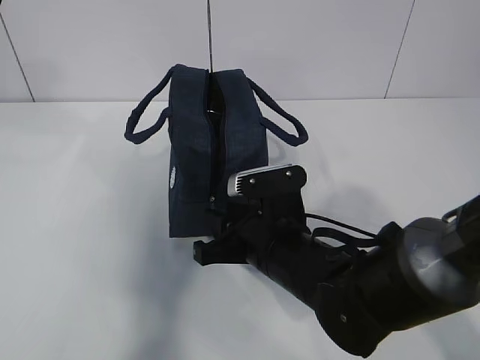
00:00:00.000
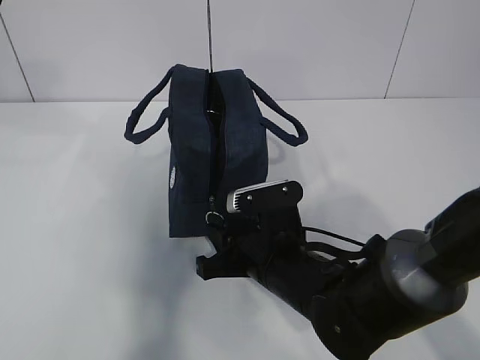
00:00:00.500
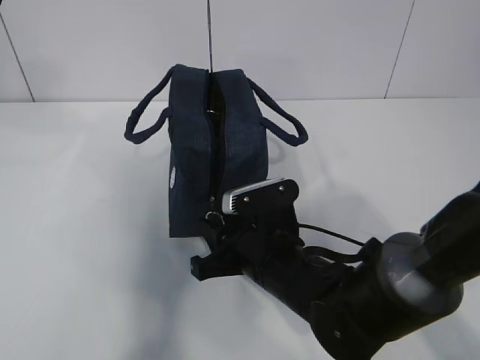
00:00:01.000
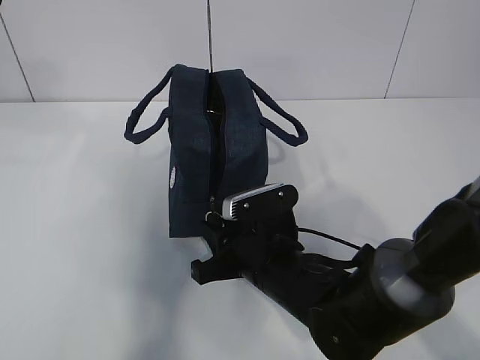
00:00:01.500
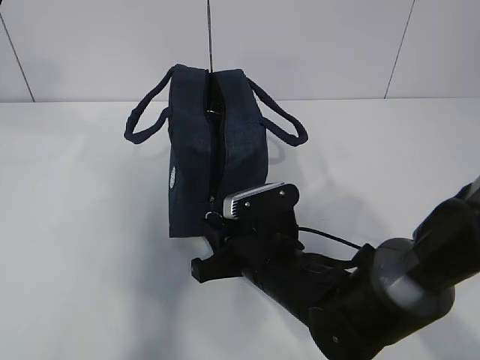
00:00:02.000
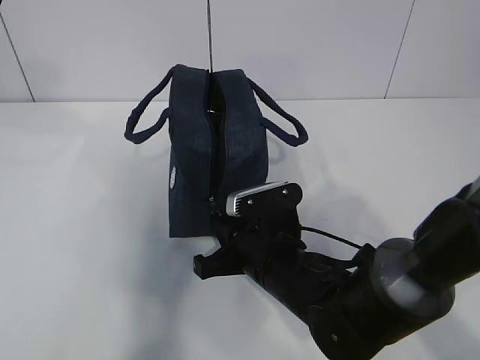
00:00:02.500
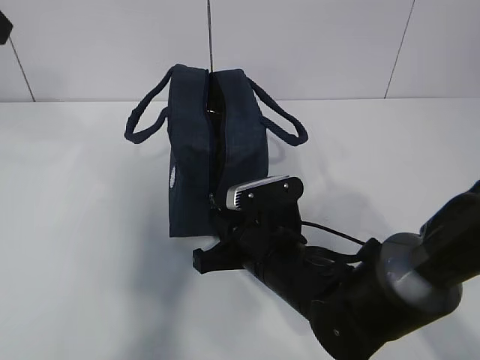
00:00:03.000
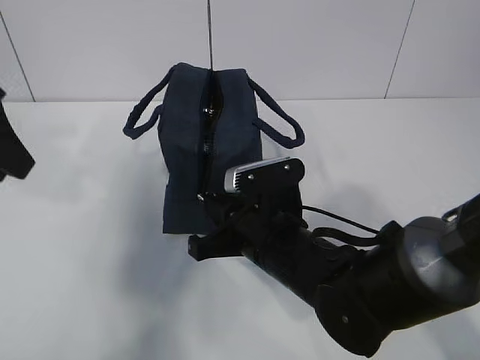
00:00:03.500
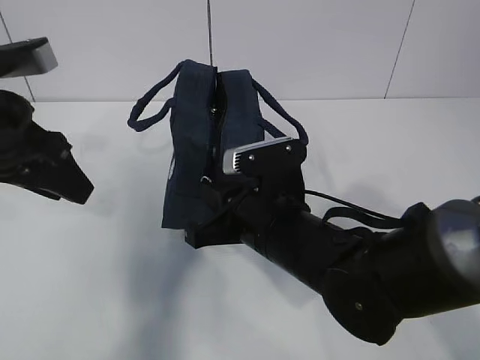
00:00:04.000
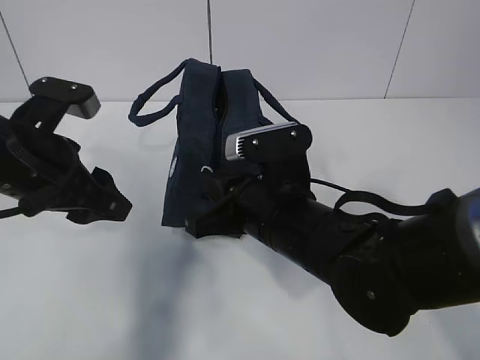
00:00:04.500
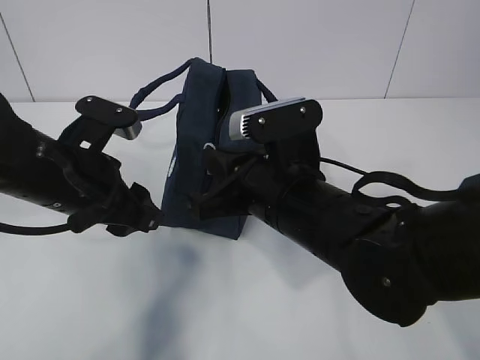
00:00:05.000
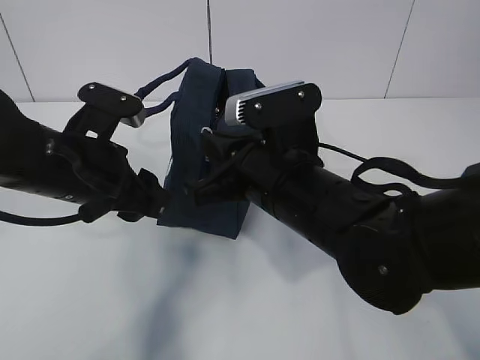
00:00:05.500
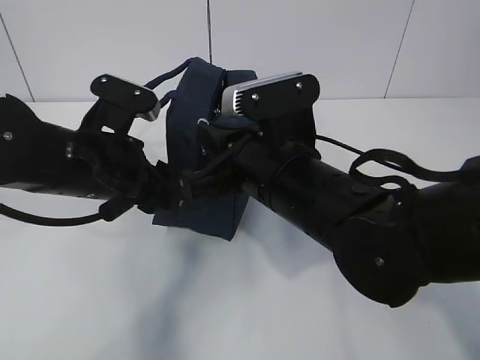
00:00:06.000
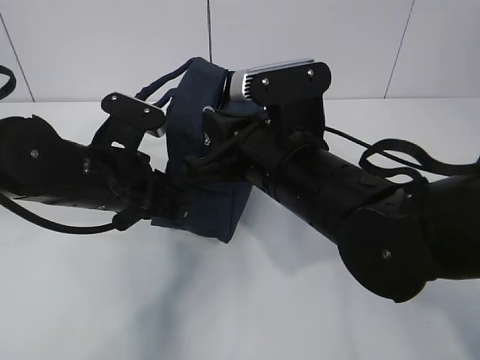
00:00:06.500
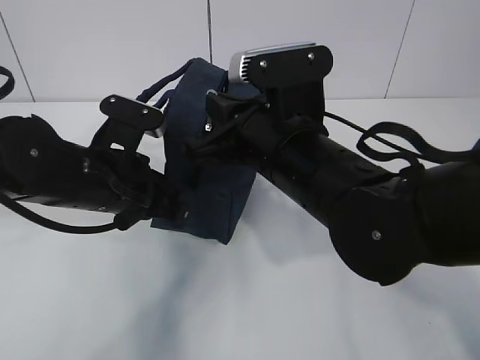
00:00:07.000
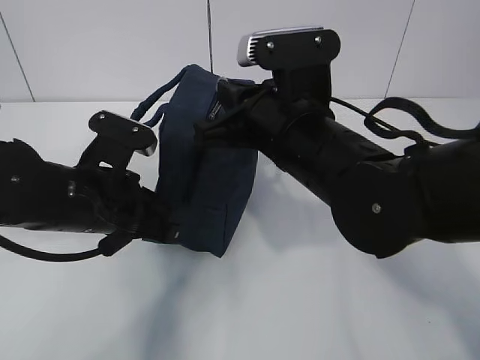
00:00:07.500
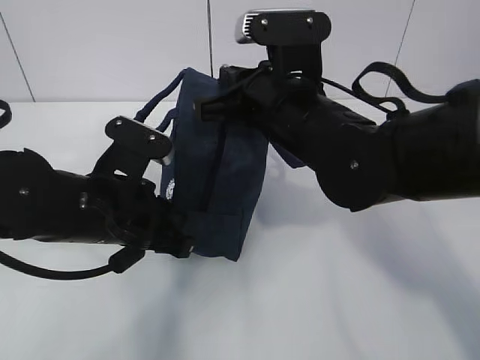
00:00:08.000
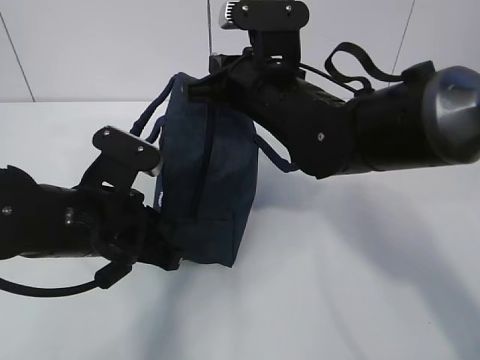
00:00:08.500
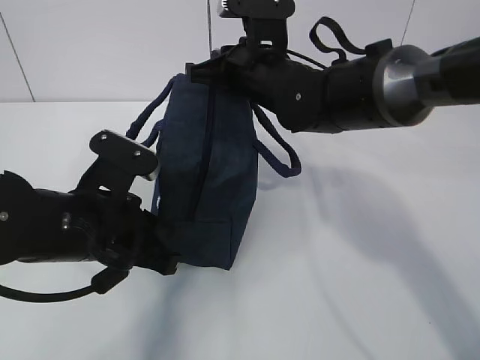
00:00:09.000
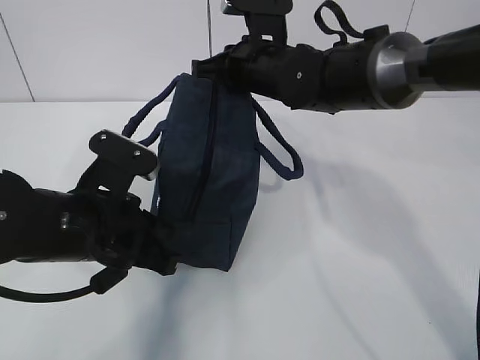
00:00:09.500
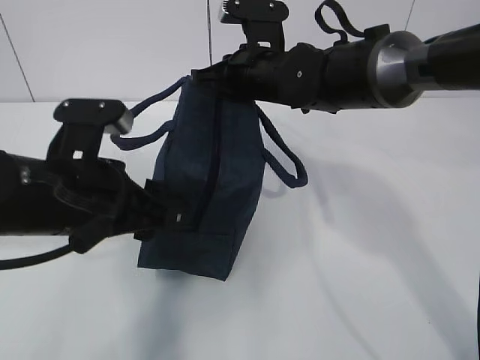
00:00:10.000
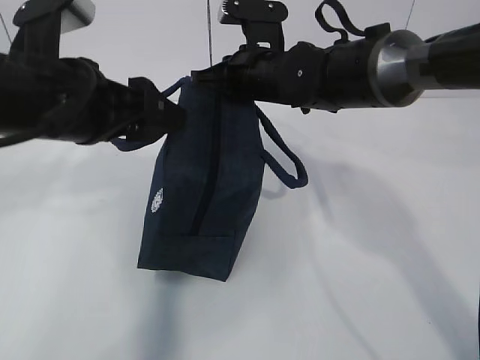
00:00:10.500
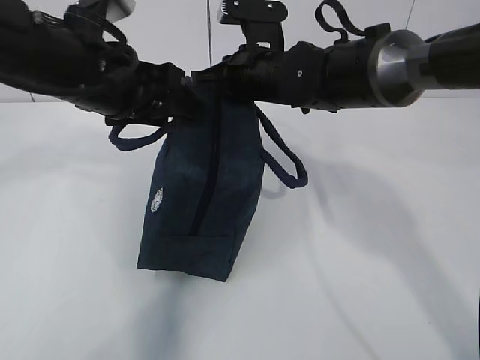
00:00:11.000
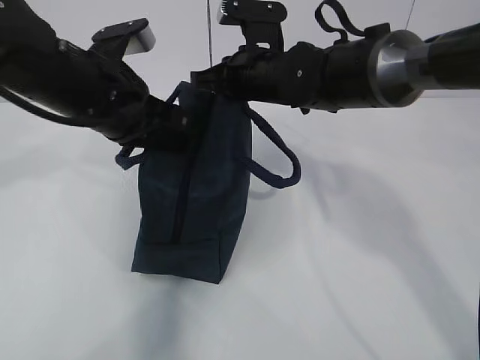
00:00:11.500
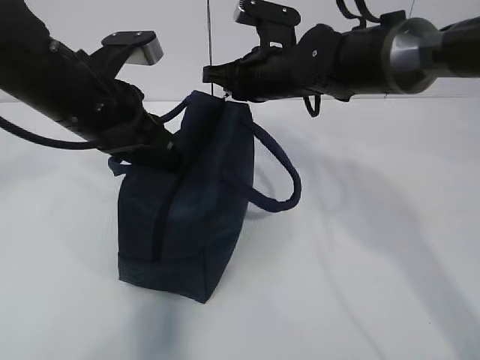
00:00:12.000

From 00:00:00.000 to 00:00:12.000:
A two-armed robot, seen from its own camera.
Step, from 00:00:00.000 to 00:00:05.000: Pull the zipper with your right hand.
Step, from 00:00:05.500 to 00:00:06.000: Grab the lunch bag with your left hand.
From 00:00:00.000 to 00:00:02.000: There are only small adjustments of the grippers.
From 00:00:02.000 to 00:00:04.000: The left gripper heads downward, covering about 15 cm, while the right gripper is displaced upward by some 5 cm, and closes its fingers.
From 00:00:04.000 to 00:00:06.000: The left gripper is displaced to the right and downward by some 10 cm. The right gripper heads upward, covering roughly 5 cm.
From 00:00:06.000 to 00:00:08.000: The right gripper moves forward, approximately 5 cm. Meanwhile the left gripper closes up.
From 00:00:08.000 to 00:00:10.000: The left gripper opens its fingers, while the right gripper goes approximately 10 cm forward.
From 00:00:10.000 to 00:00:12.000: The left gripper moves forward, approximately 10 cm, and closes its fingers.

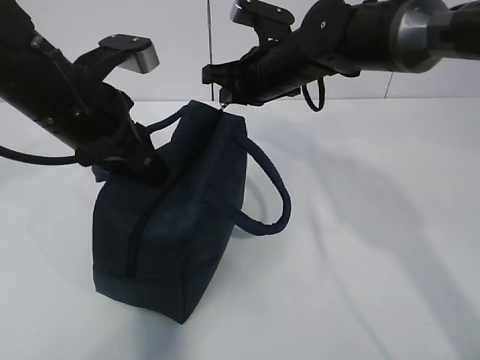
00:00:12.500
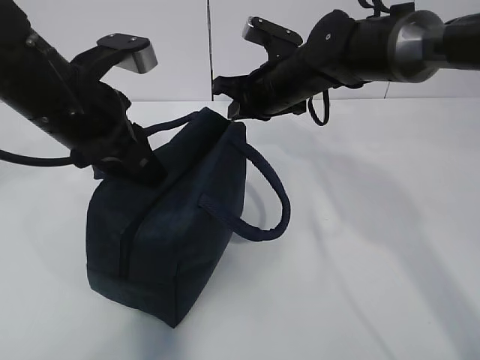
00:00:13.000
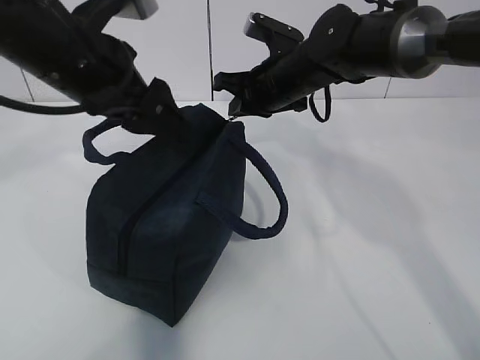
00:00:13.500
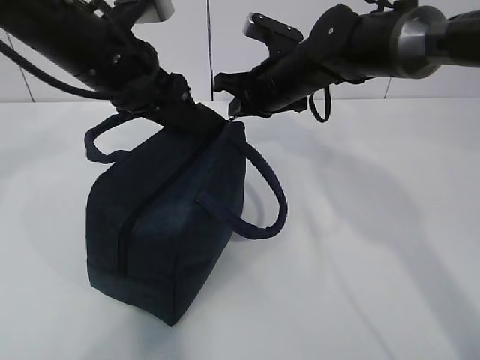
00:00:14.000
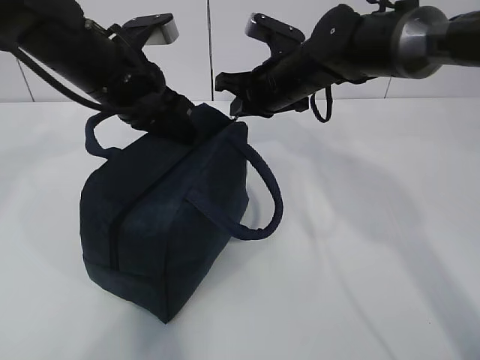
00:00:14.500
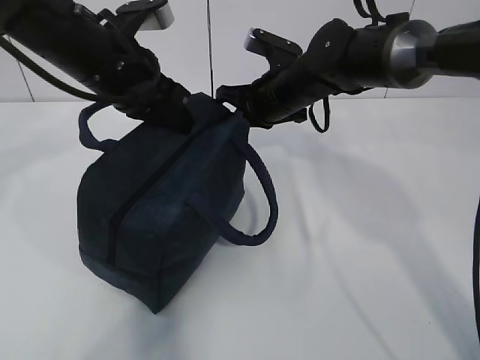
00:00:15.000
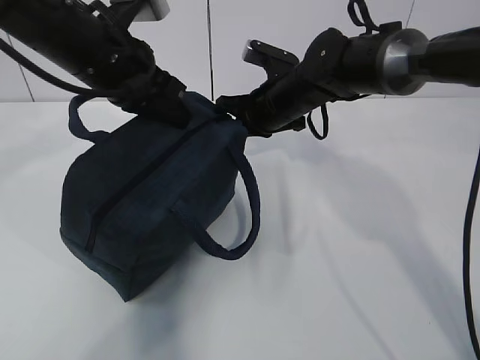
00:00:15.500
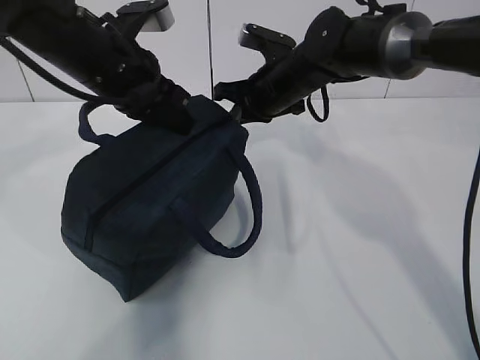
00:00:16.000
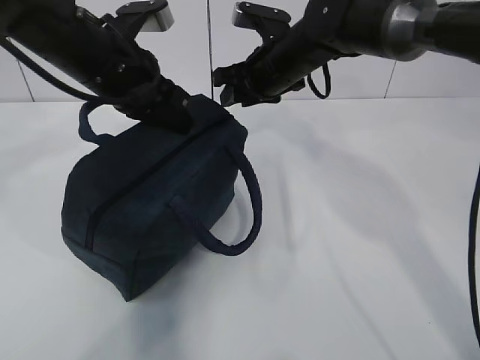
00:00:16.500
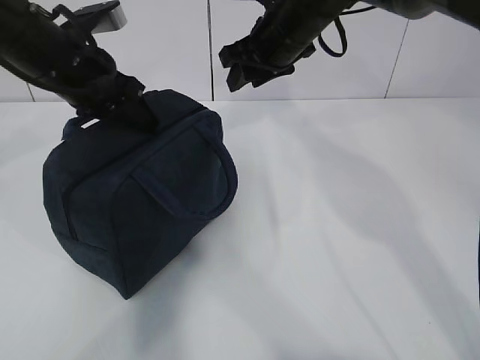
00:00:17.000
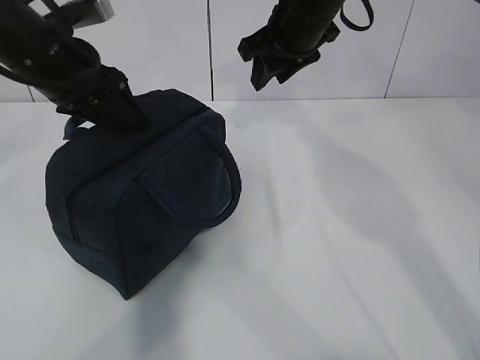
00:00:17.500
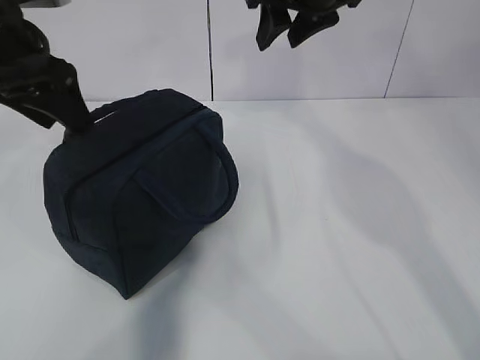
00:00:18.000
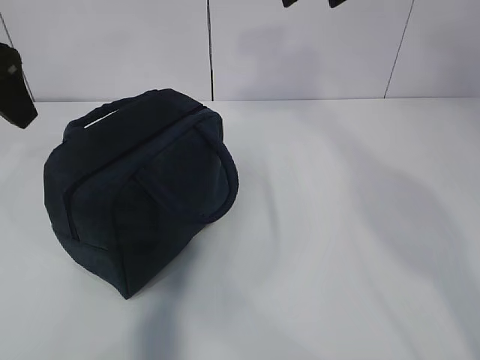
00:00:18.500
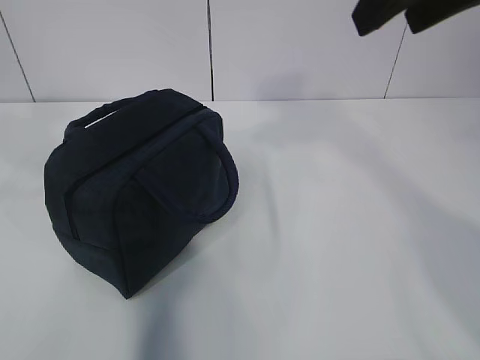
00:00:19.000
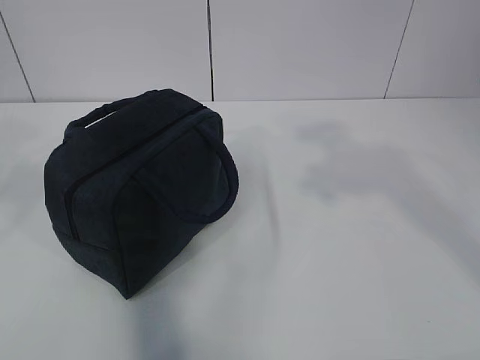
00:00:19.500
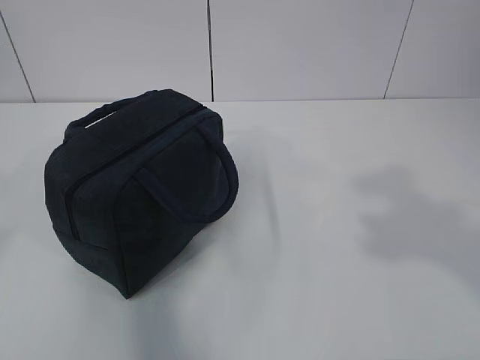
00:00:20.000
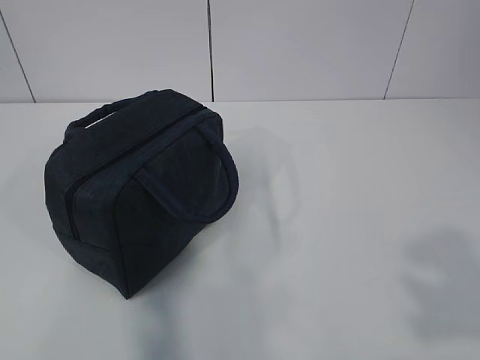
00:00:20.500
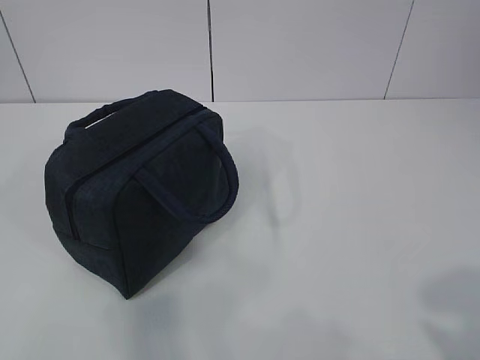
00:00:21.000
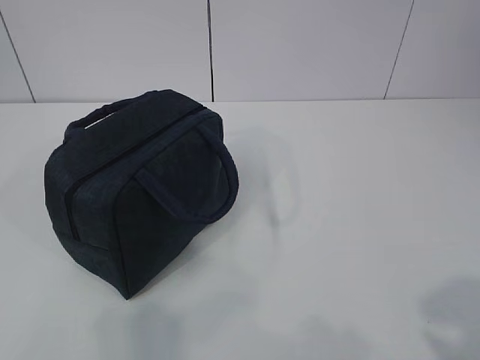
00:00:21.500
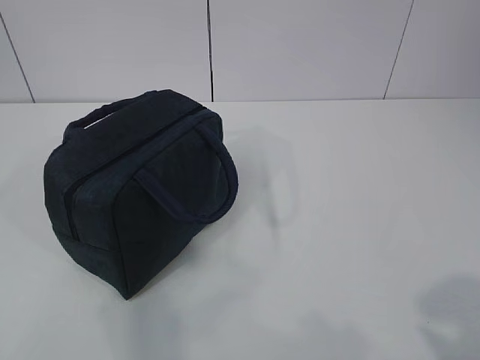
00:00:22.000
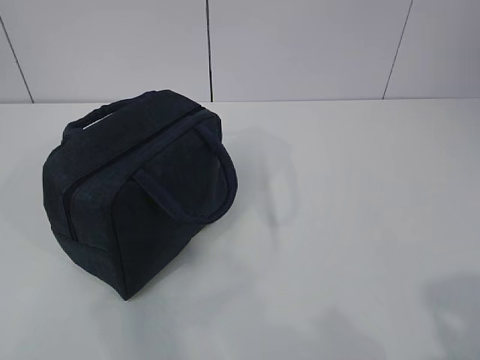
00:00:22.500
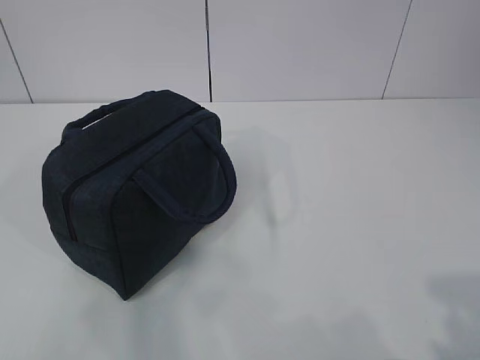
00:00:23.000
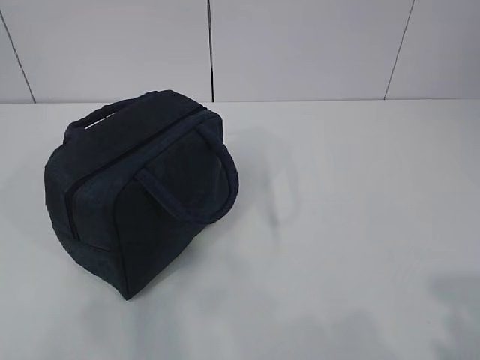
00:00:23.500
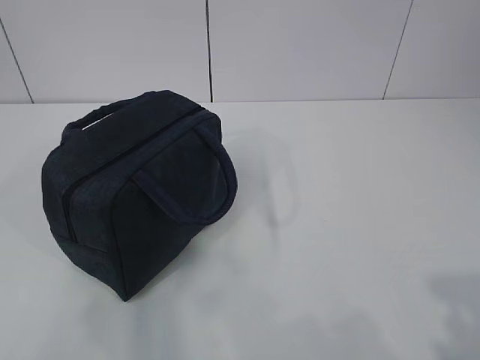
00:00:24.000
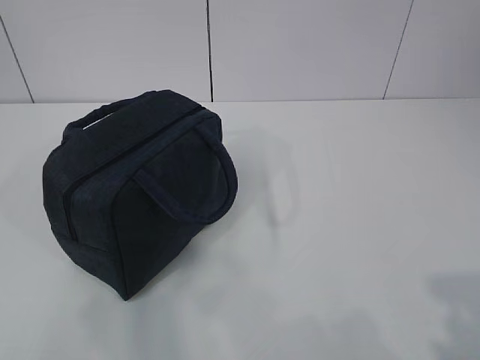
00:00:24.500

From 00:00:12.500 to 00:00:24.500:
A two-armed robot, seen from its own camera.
From 00:00:12.500 to 00:00:14.500: The left gripper shifts approximately 5 cm forward, and opens, then closes once more.
From 00:00:14.500 to 00:00:16.500: The right gripper opens up.
From 00:00:16.500 to 00:00:18.500: The left gripper goes approximately 15 cm to the left, upward and backward, and opens its fingers; the right gripper heads upward and backward, covering some 20 cm.
From 00:00:18.500 to 00:00:20.500: The two grippers go some 35 cm backward.
From 00:00:20.500 to 00:00:22.500: The left gripper travels downward by approximately 5 cm, while the right gripper heads downward, covering some 10 cm.

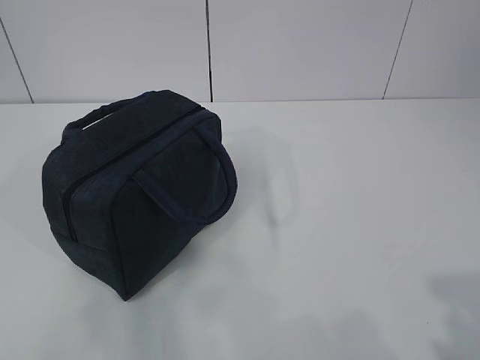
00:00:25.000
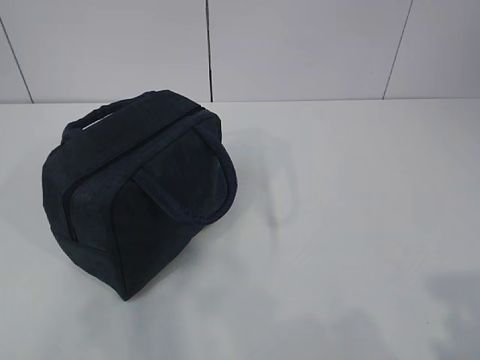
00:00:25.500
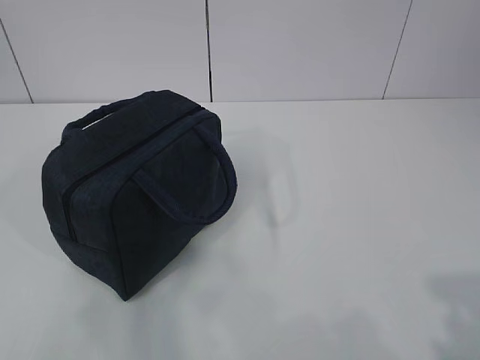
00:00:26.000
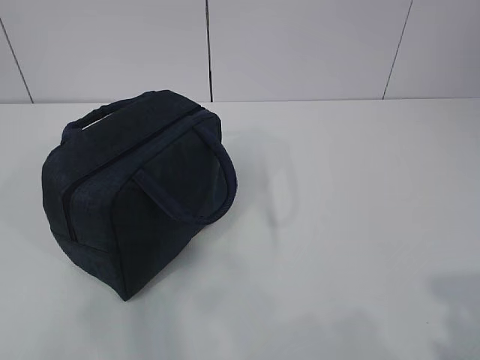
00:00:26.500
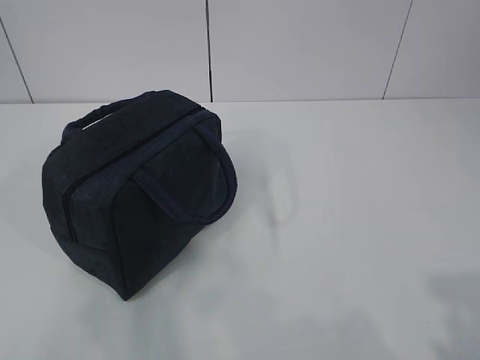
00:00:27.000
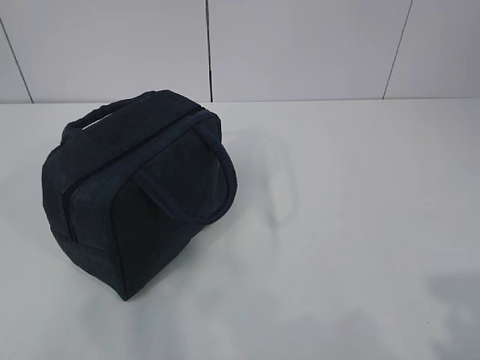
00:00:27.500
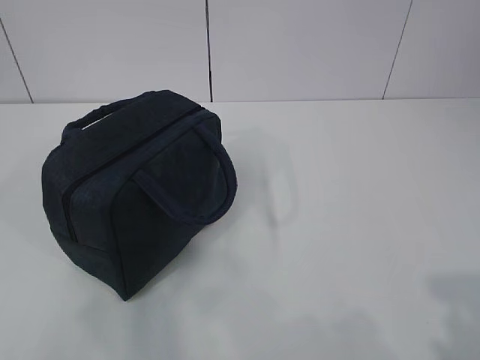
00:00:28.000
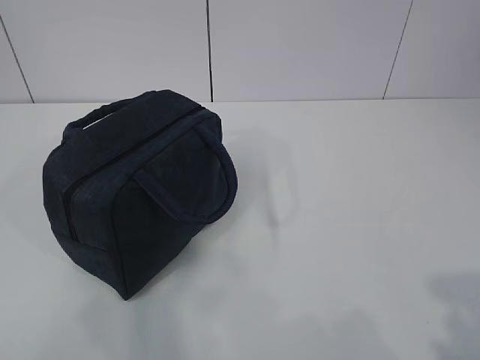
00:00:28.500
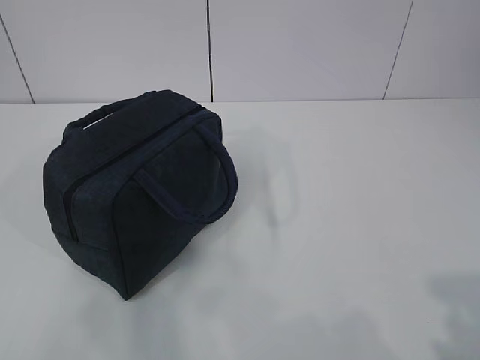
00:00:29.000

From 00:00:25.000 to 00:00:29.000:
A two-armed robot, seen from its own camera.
From 00:00:25.000 to 00:00:29.000: The two grippers keep their place.
